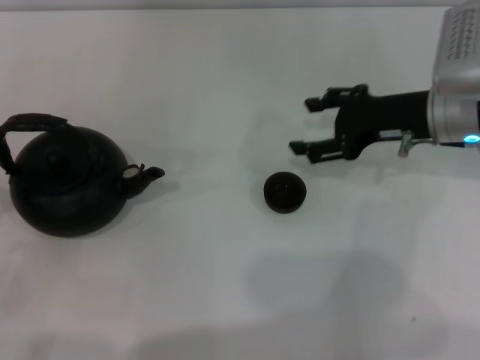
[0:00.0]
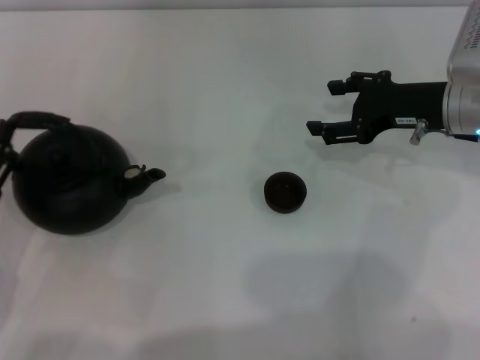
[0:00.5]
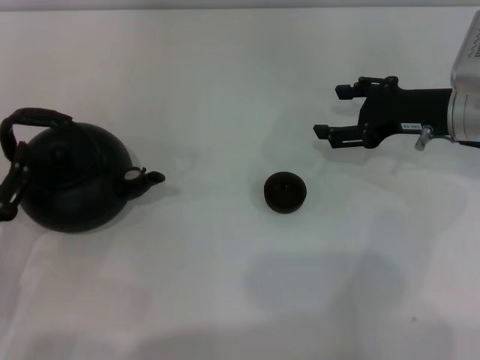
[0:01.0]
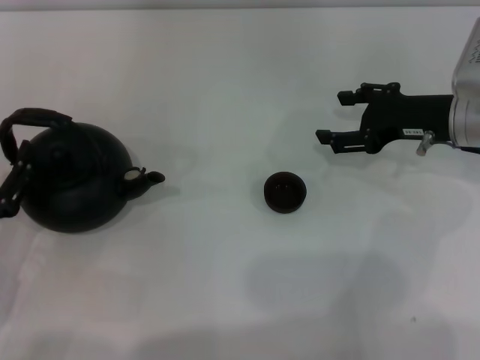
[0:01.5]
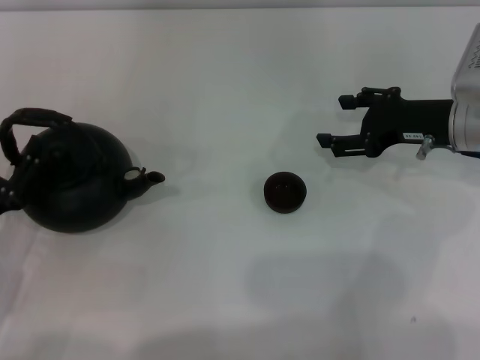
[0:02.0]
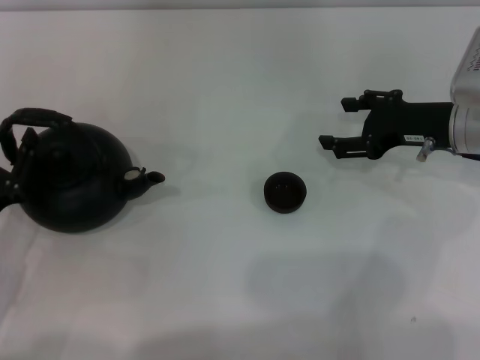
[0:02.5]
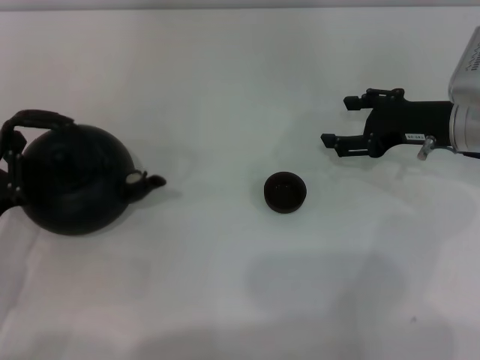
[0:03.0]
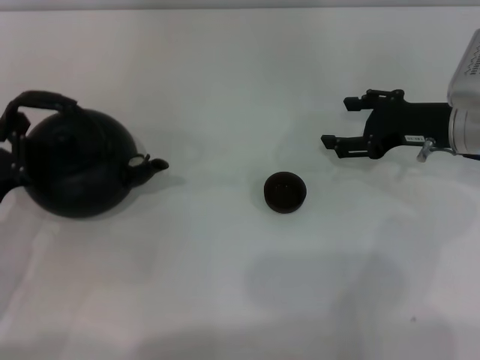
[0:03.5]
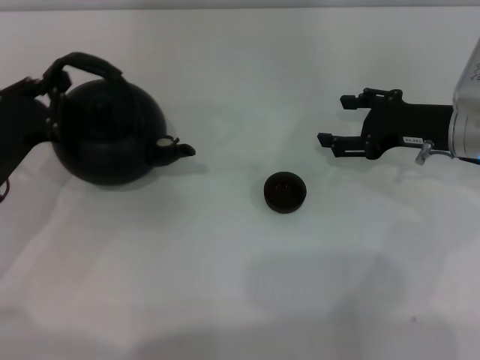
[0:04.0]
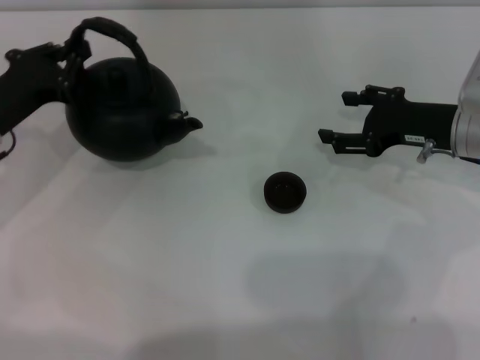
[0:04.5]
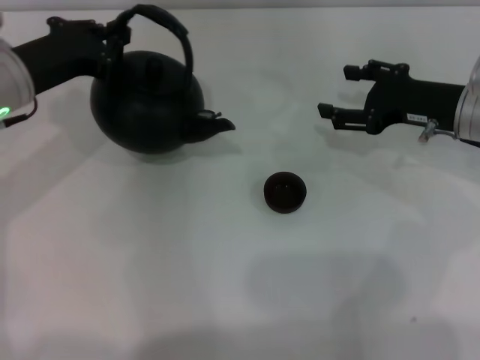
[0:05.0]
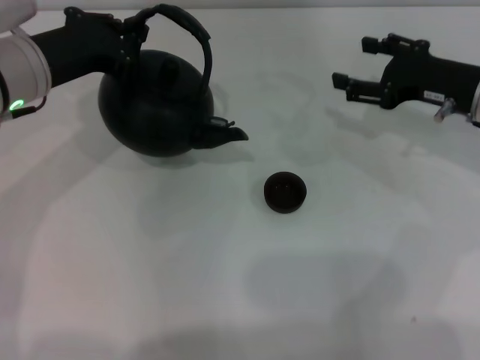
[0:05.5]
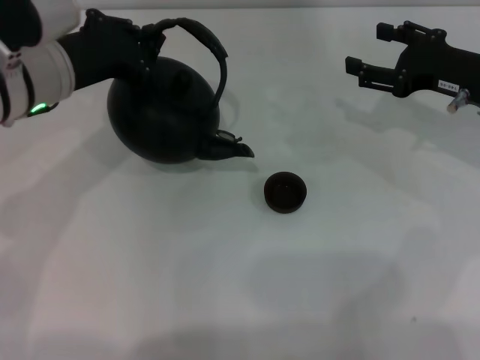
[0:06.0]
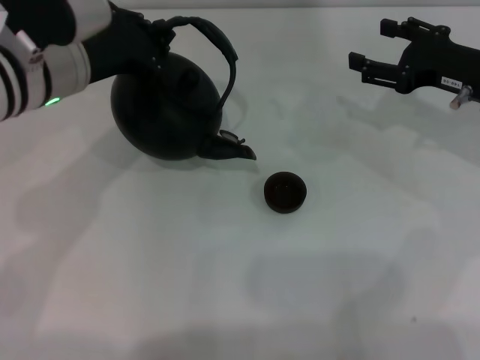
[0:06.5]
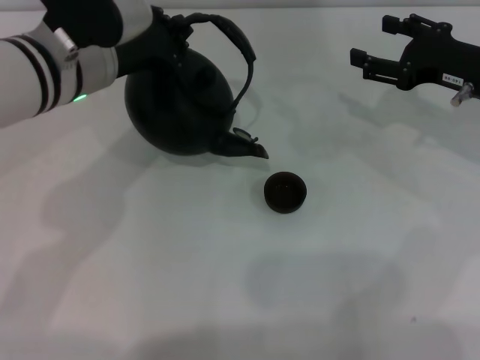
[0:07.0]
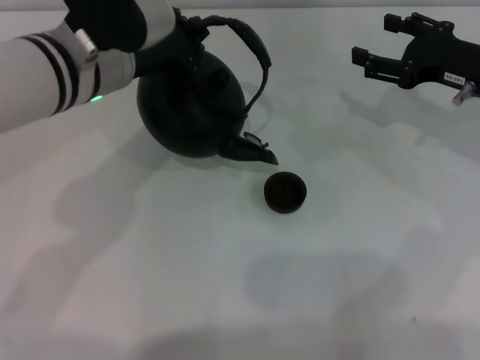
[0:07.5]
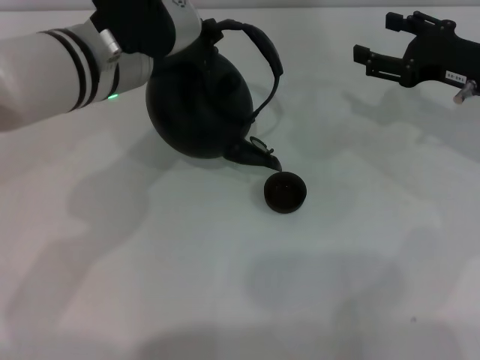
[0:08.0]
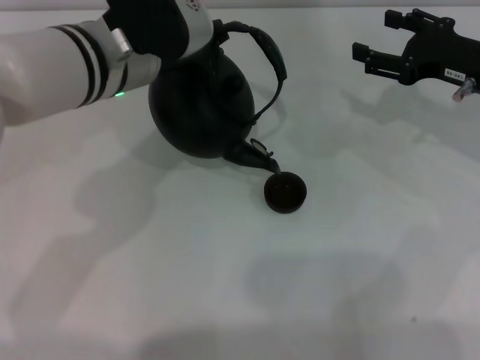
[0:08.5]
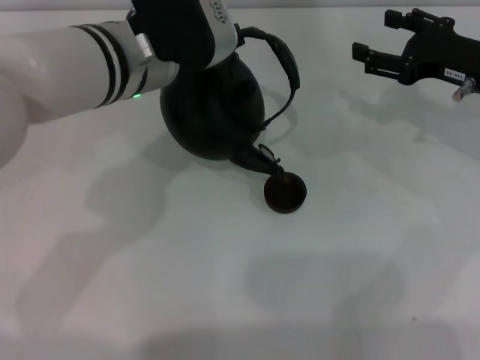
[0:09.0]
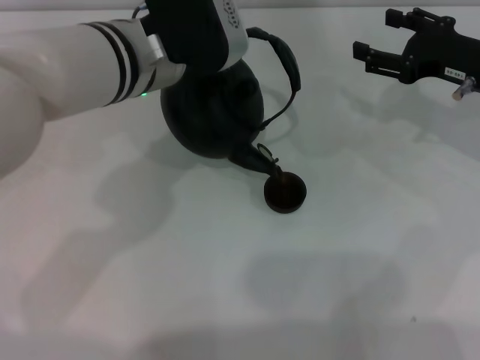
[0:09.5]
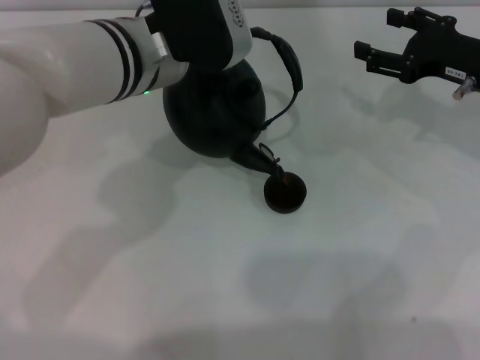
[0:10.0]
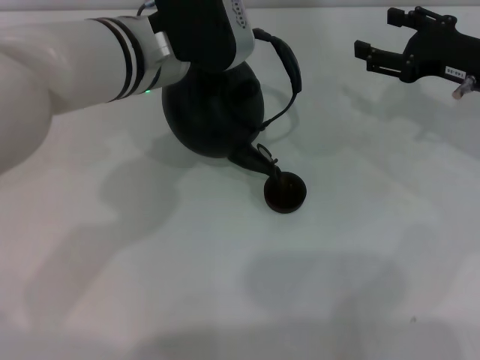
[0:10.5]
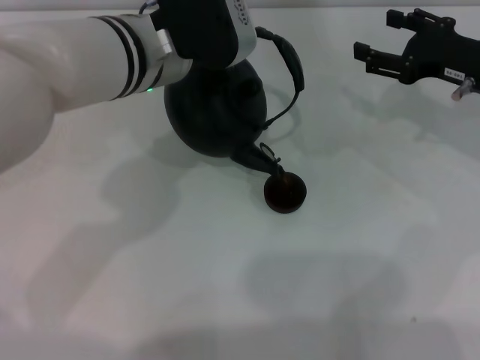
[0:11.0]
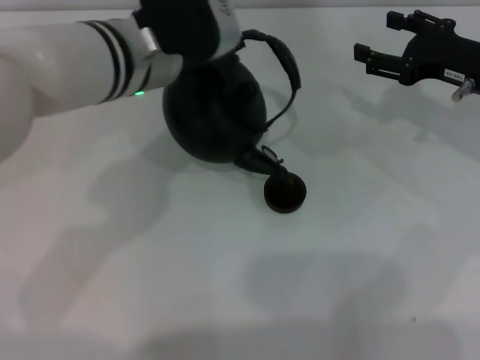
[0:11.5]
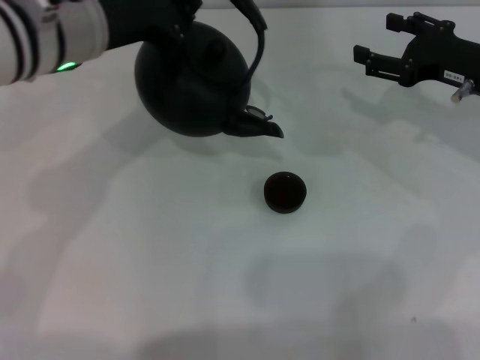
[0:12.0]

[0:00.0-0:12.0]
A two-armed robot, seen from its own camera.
Task of the whole recording: Grasp the handle of the teapot with one hand and pour tea into the teacup.
Step, 0:00.0 to 0:03.5: Pick up the teapot with the left gripper.
Step, 0:04.5 to 0:11.5: Pour tea into the teacup with the left gripper.
0:00.0 to 0:02.0: The grippers stay close to where they were, moving slightly.
0:02.0 to 0:04.0: The left gripper is displaced forward by about 10 cm, and closes up.
0:04.0 to 0:06.0: The left gripper is displaced upward, to the right and forward by about 15 cm.
0:06.0 to 0:08.0: The left gripper travels to the right by about 5 cm.
0:08.0 to 0:10.0: The grippers make only small movements.
0:10.0 to 0:12.0: The left gripper moves to the left, approximately 5 cm.

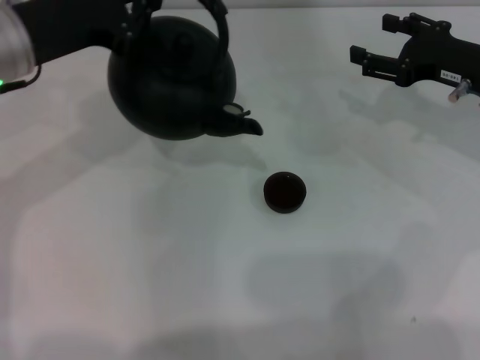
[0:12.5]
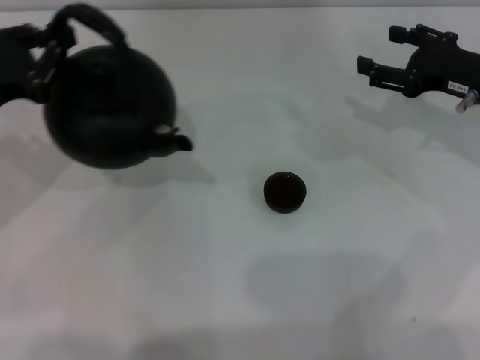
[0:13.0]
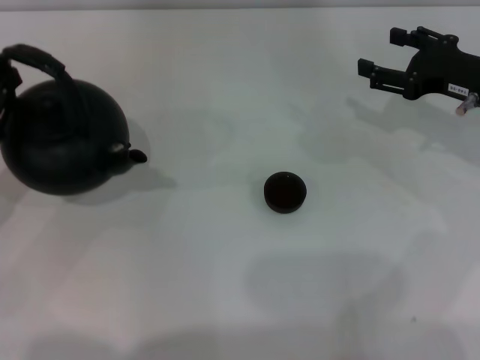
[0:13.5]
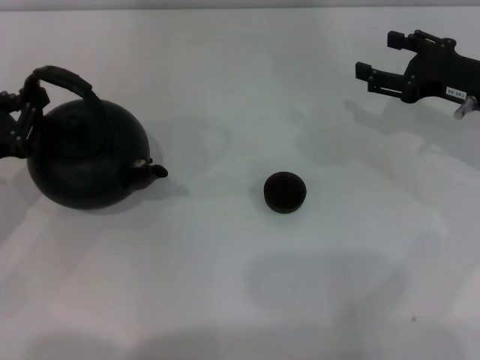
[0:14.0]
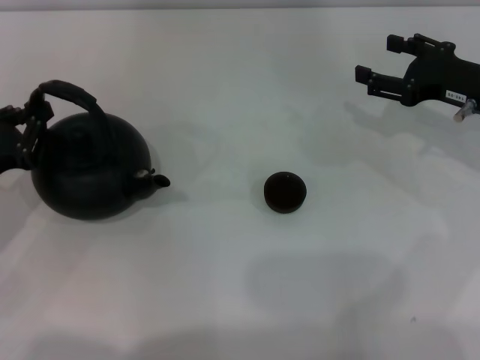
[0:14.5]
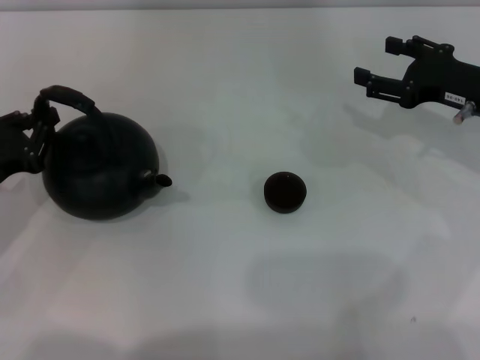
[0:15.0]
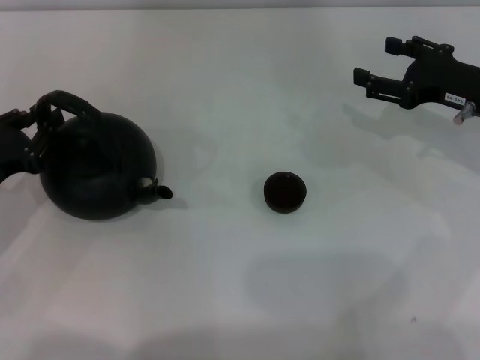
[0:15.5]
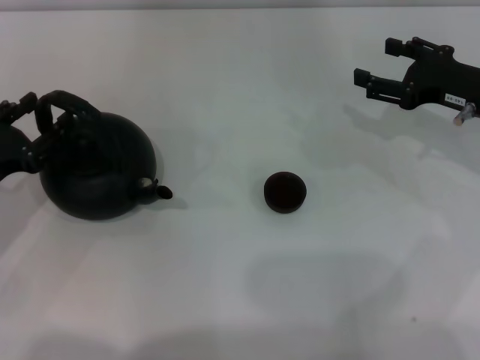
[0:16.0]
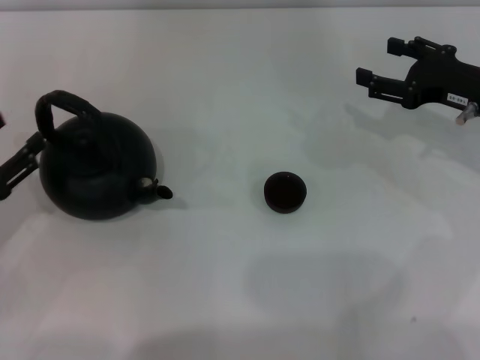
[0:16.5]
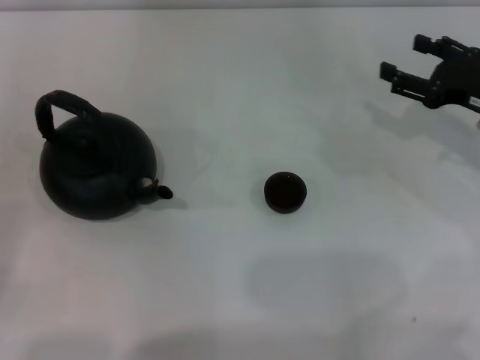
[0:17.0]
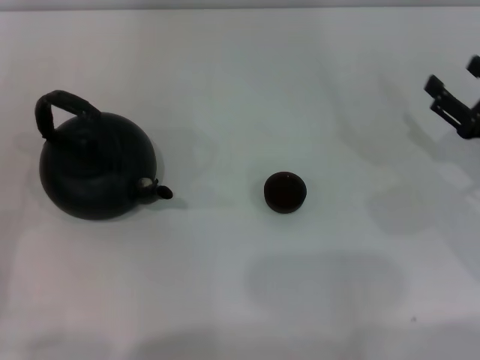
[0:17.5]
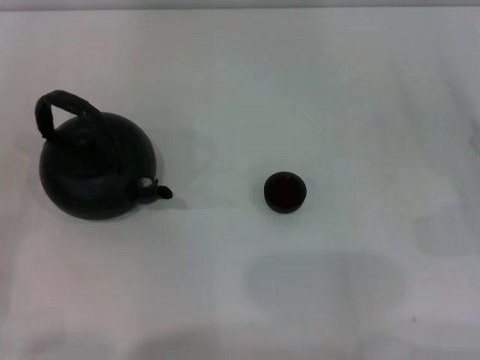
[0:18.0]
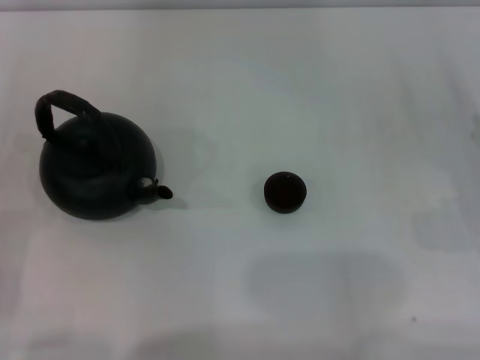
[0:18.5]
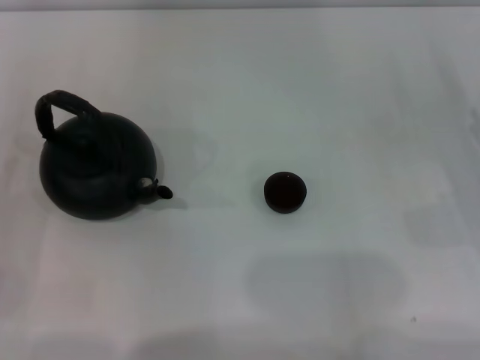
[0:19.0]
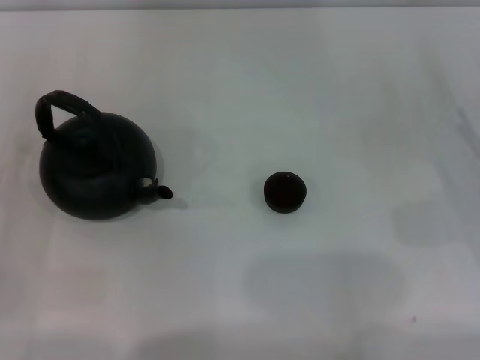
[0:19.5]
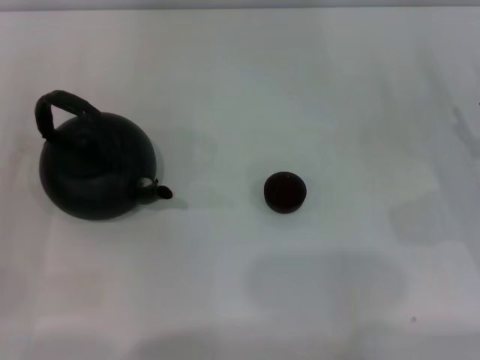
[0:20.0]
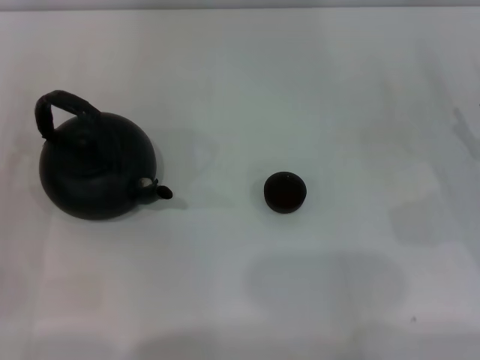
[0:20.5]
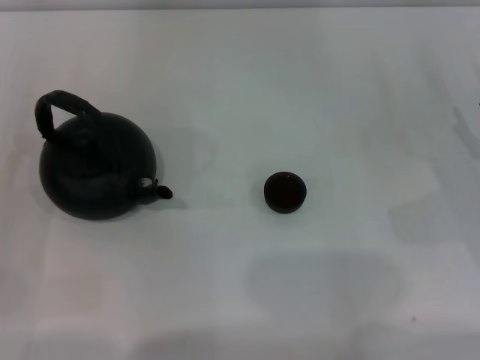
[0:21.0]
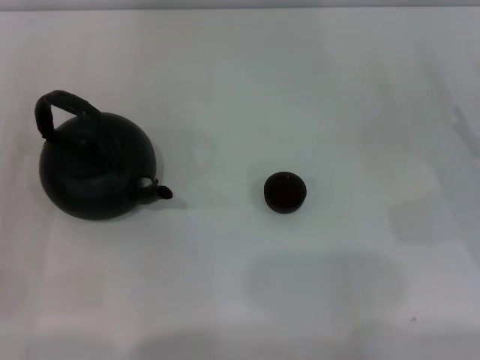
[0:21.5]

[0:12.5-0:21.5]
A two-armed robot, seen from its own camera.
Task of the whole recording: Grasp the handle of the teapot with one hand and pour tea into the teacup.
Step, 0:12.5 to 0:16.5: Put down the teapot with the left gripper.
0:12.5 to 0:14.5: The left gripper travels downward, to the left and backward by about 20 cm.
0:14.5 to 0:17.0: The left gripper travels backward and to the left by approximately 10 cm, and opens.
0:17.0 to 0:19.5: The right gripper moves backward and downward, some 10 cm.
0:19.5 to 0:21.5: The two grippers keep their place.

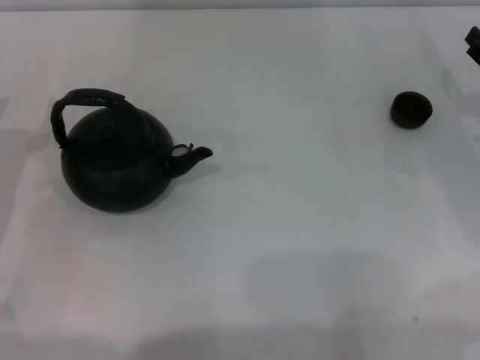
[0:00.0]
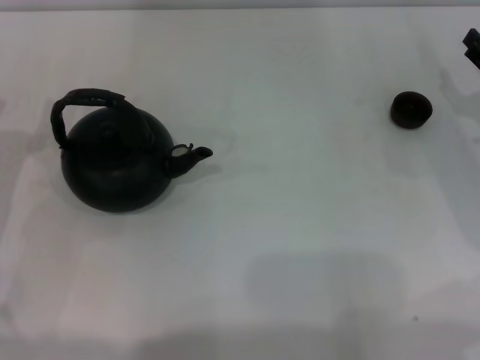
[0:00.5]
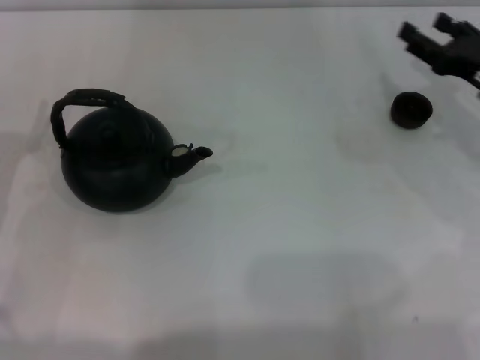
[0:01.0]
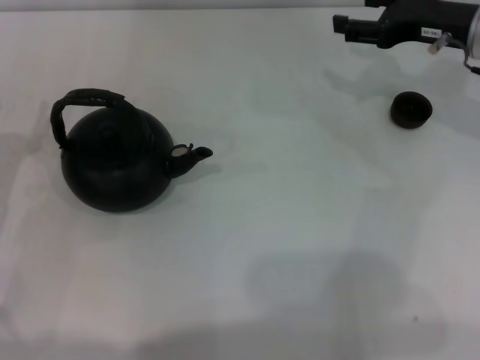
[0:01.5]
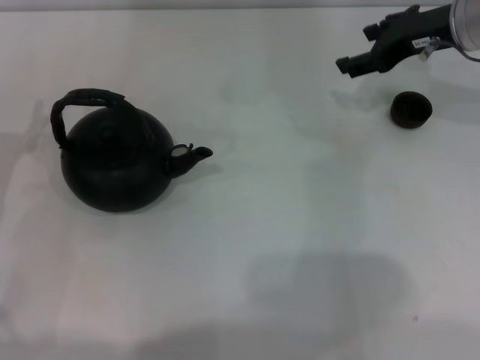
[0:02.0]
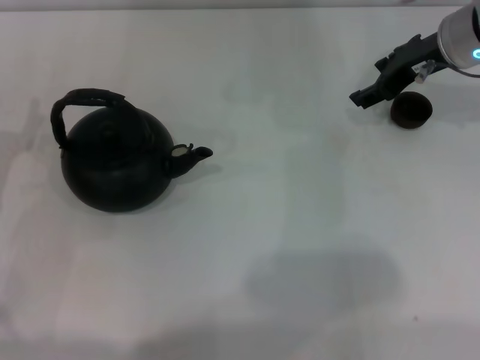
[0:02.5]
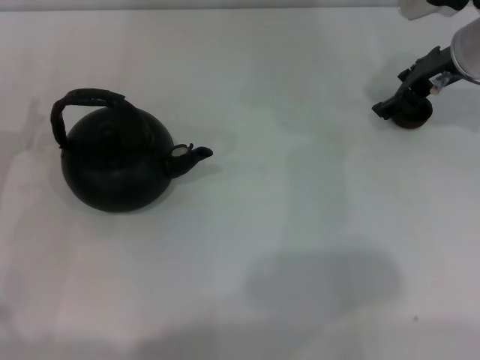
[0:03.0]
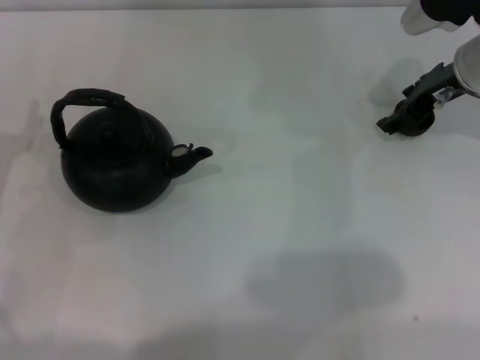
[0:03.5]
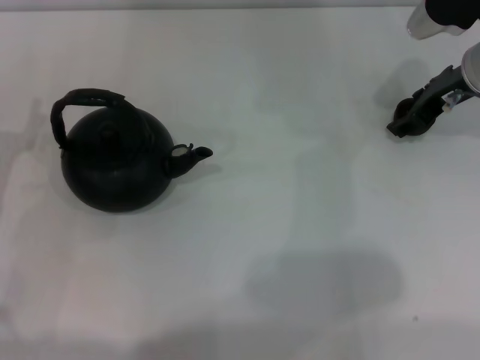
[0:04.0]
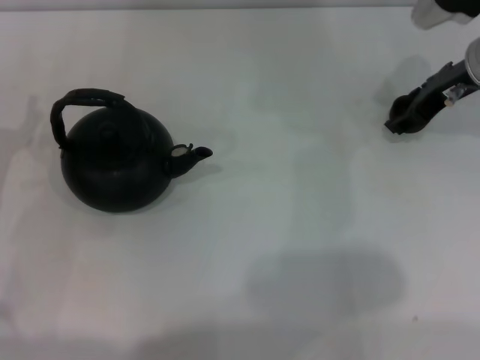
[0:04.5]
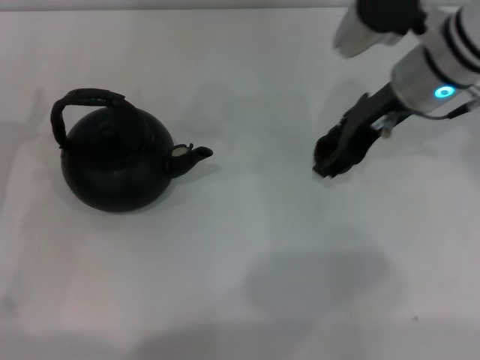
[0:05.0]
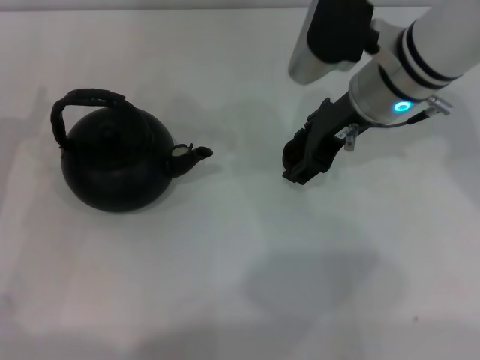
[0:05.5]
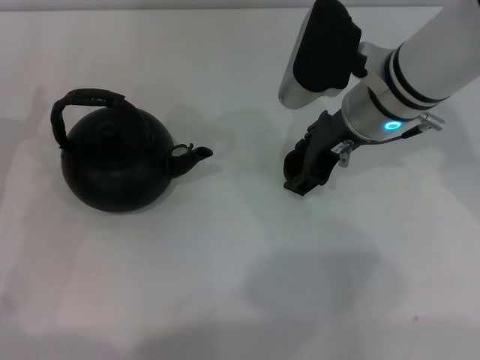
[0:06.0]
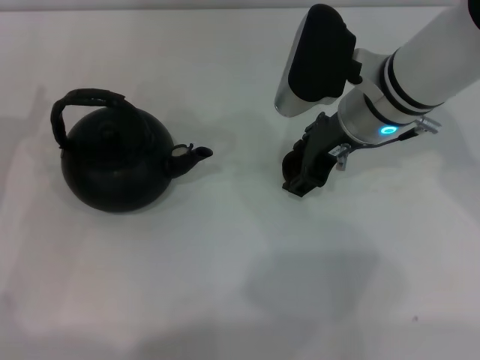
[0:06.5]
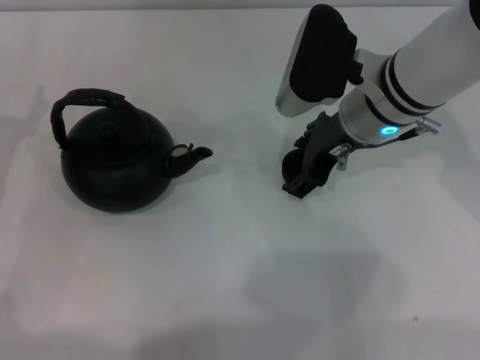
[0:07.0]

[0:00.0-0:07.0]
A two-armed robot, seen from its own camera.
Task of the whole recording: Grasp the handle of the teapot with one hand and pour tea into the teacup.
Step, 0:00.0 to 0:04.5: Pick up the teacup with the right gripper.
0:00.0 to 0:02.0: The right gripper shifts about 20 cm upward, to the left and forward.
0:03.5 to 0:05.0: The right gripper heads to the left, covering some 5 cm.
0:05.0 to 0:07.0: The right gripper moves about 5 cm.
